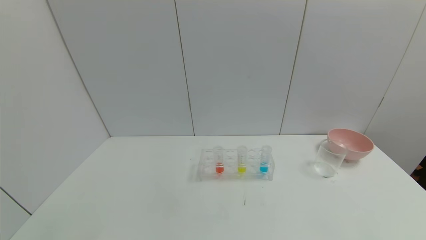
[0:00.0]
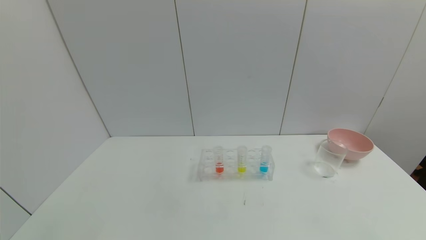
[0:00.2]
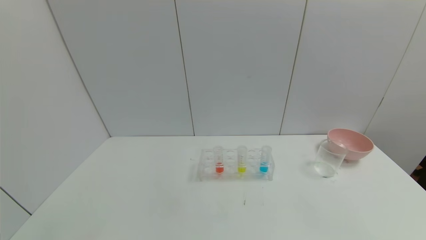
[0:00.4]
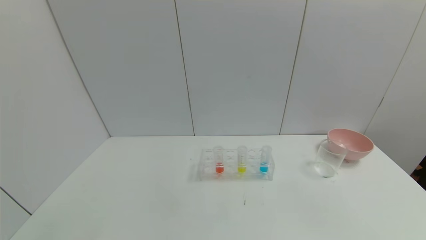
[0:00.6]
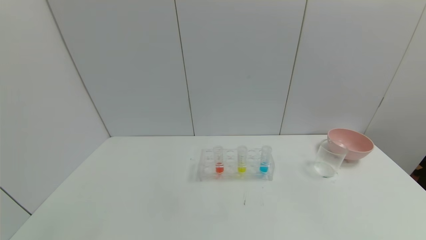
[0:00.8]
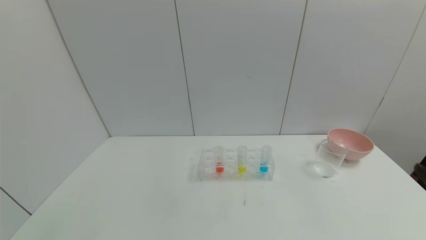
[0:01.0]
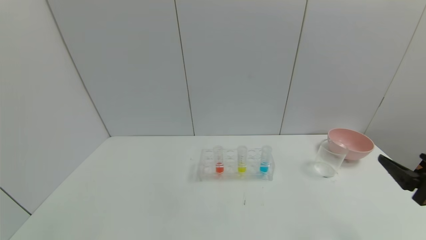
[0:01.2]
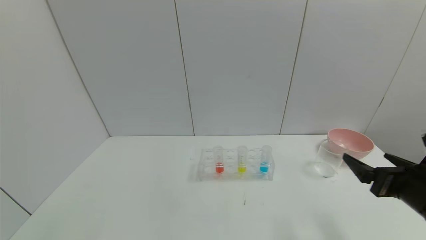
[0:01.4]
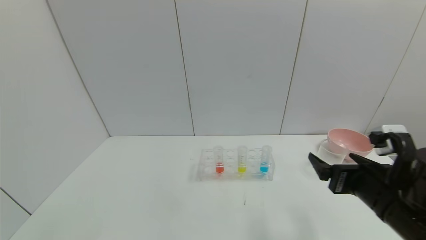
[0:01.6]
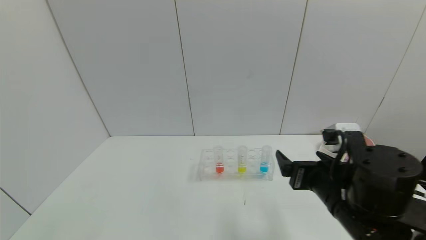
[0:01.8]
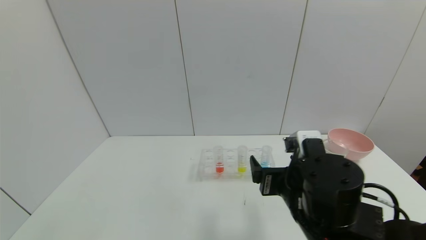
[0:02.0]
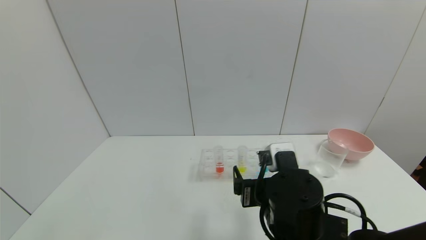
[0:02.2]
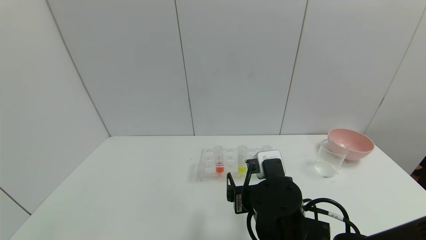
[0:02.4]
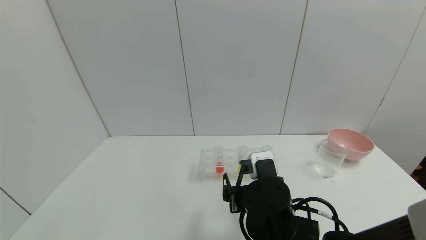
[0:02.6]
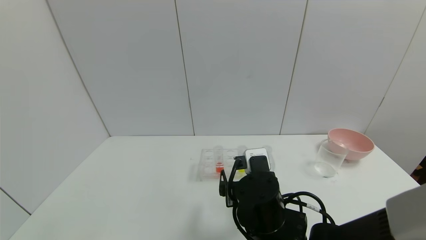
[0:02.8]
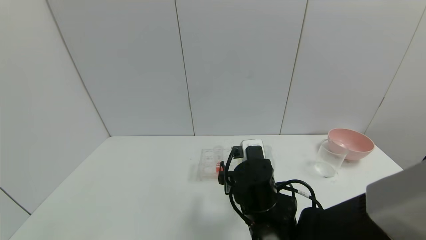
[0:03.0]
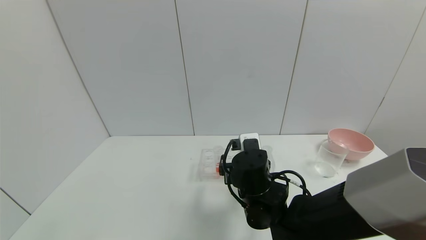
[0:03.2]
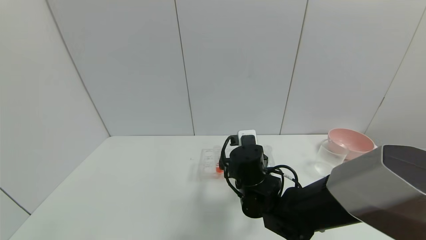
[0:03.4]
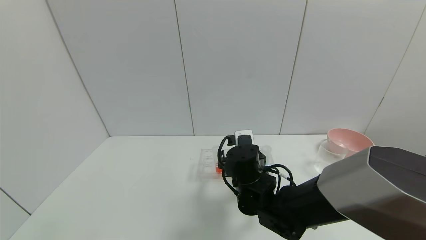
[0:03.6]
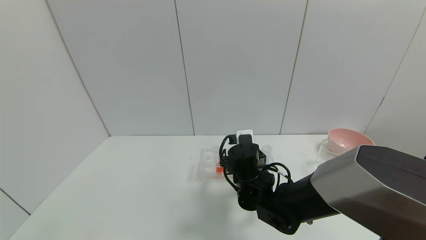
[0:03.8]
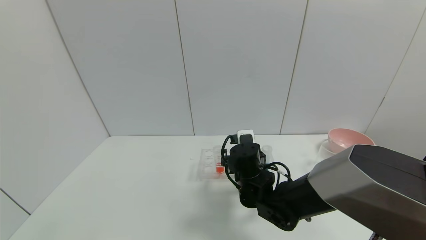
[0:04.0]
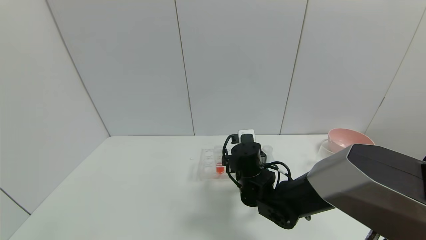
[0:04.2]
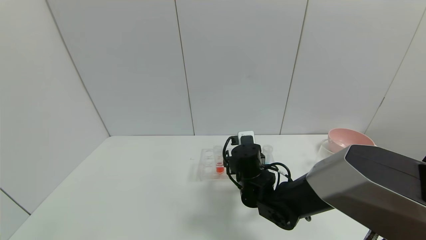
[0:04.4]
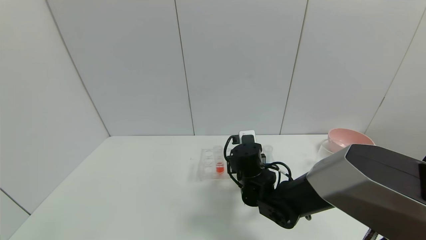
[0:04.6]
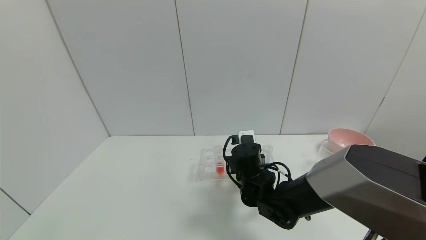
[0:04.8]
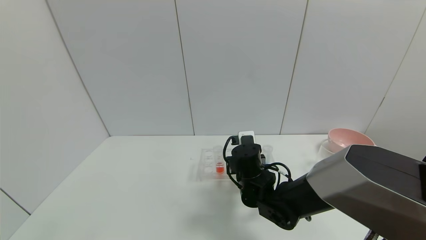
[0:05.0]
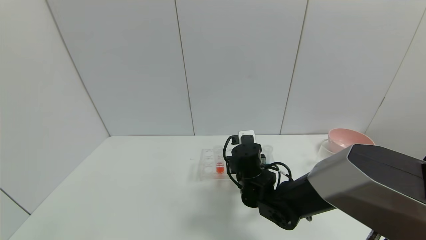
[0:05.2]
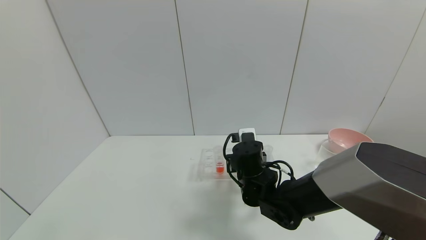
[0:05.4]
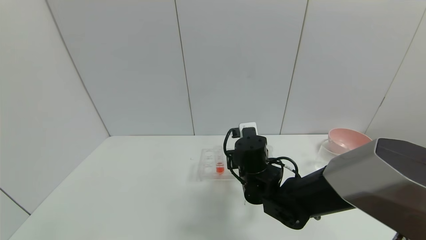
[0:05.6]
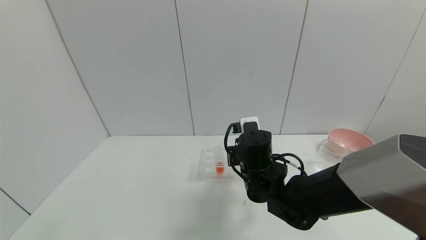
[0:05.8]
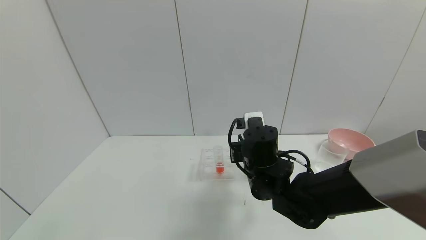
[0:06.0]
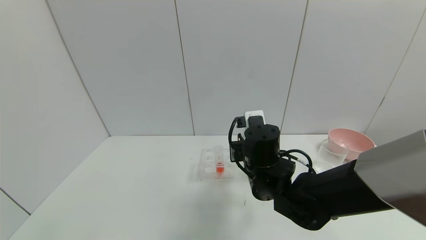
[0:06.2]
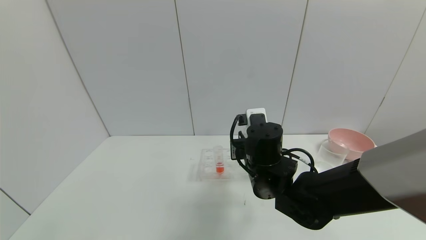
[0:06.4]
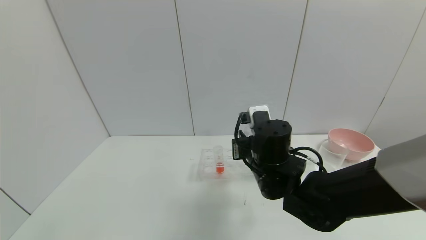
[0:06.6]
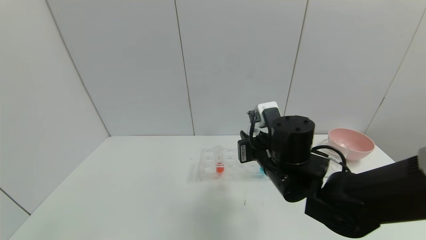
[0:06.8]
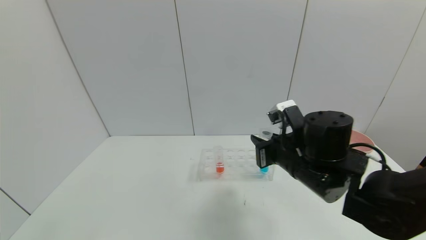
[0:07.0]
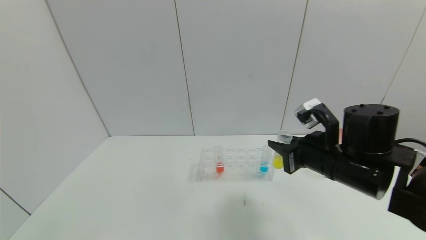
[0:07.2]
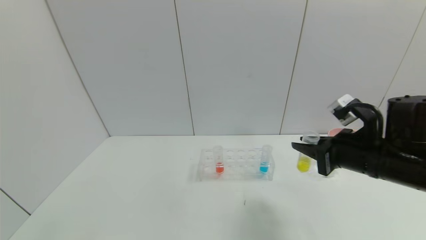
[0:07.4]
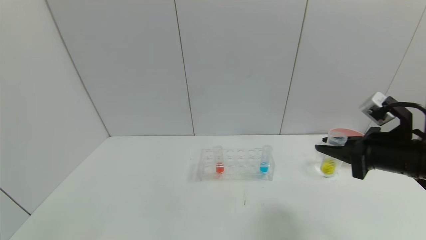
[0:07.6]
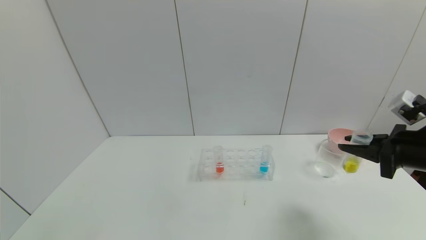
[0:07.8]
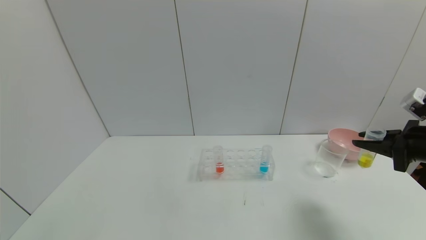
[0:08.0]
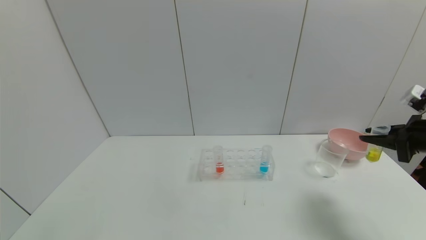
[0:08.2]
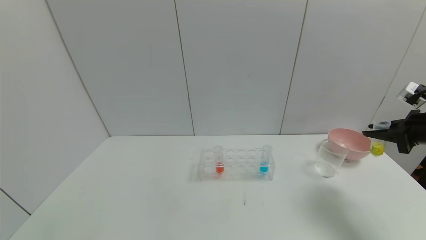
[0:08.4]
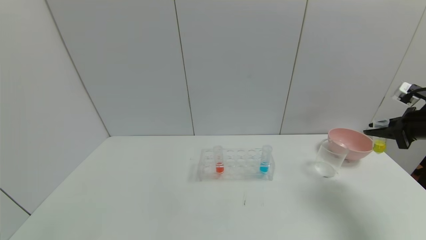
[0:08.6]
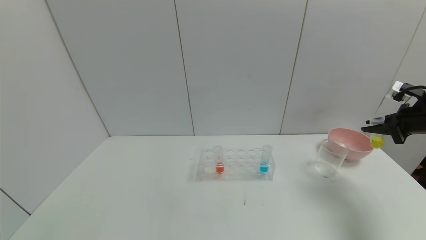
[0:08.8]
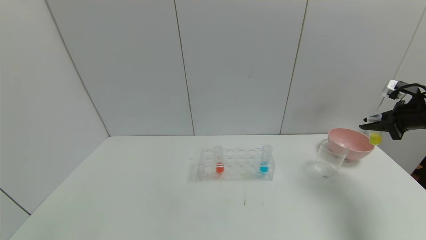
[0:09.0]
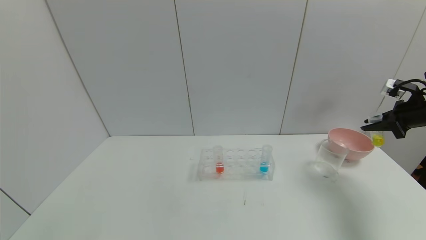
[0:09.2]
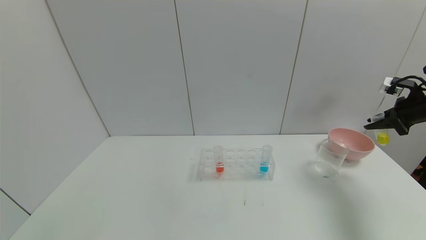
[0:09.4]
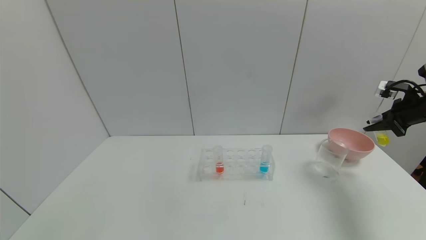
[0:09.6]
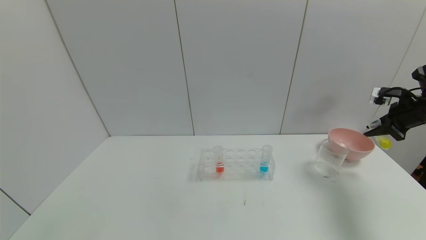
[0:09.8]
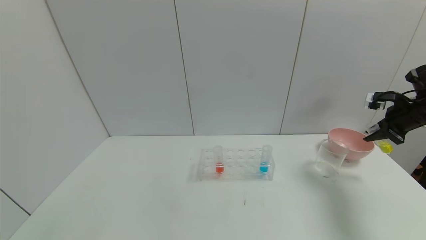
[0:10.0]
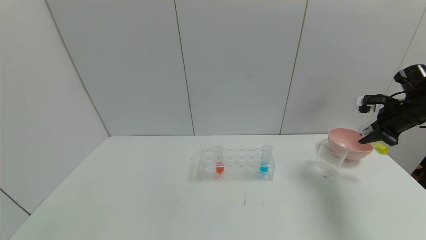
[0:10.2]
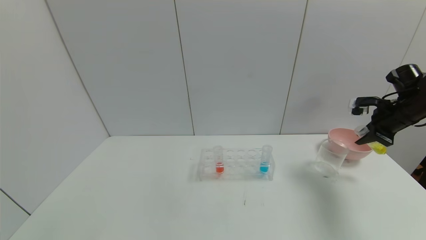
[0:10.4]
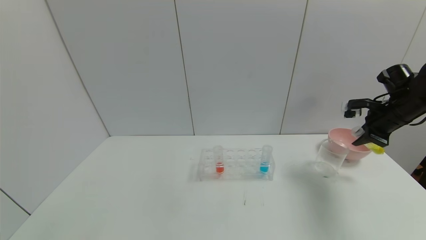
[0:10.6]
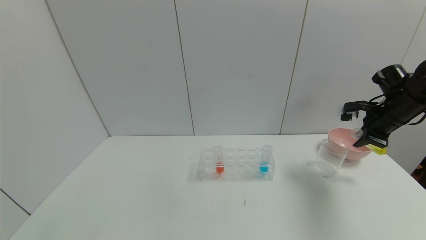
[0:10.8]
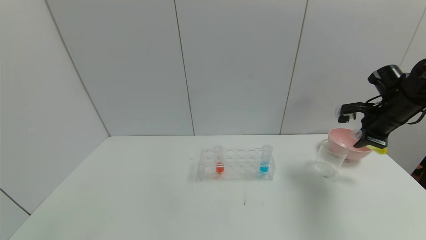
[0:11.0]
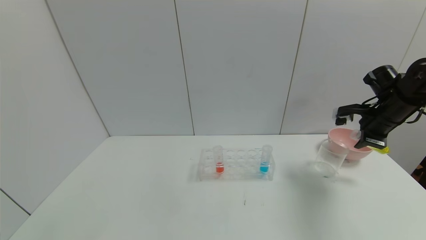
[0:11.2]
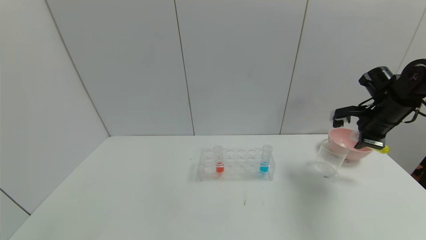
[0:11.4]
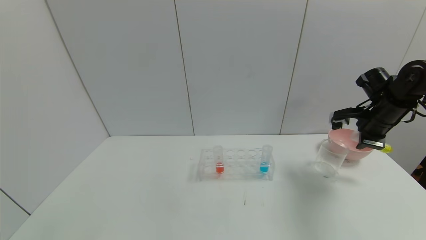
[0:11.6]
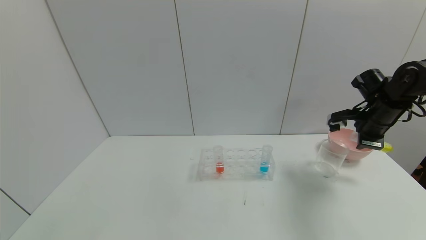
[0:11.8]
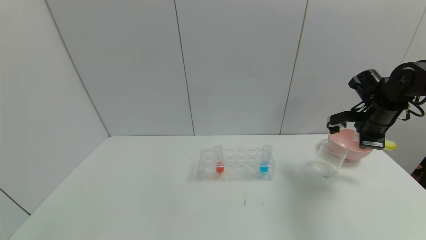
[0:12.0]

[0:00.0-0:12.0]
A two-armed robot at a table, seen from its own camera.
Task of the whole recording: pick up the test tube with yellow pigment and the test tube with blue pigment by grippers and pour them into the beaker.
Step, 0:00.0 to 0:05.0: Grasp the yellow reagent with the right gripper.
0:00.0 to 0:01.6: The right gripper travels forward and to the left by some 25 cm.
0:01.6 to 0:03.0: The right gripper is displaced to the left by about 15 cm.
0:03.0 to 0:04.4: The right gripper heads forward, covering roughly 10 cm.
0:04.4 to 0:06.0: The right gripper goes some 5 cm upward, and closes its fingers.
0:06.0 to 0:07.6: The right gripper goes about 25 cm to the right.
0:07.6 to 0:09.0: The right gripper travels to the right and forward by about 20 cm.
0:09.0 to 0:10.4: The right gripper shifts approximately 5 cm to the left.
0:10.4 to 0:12.0: The right gripper moves to the left, some 5 cm.

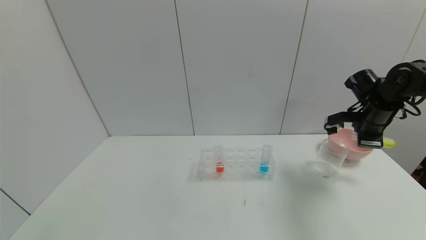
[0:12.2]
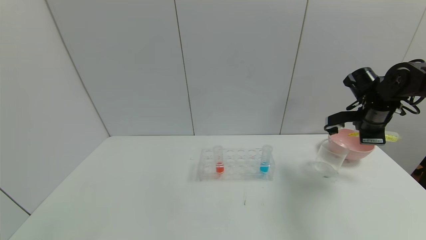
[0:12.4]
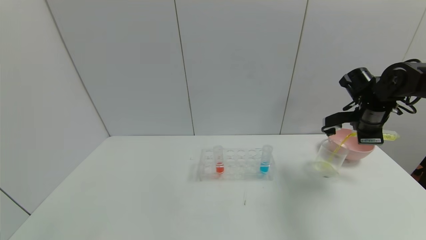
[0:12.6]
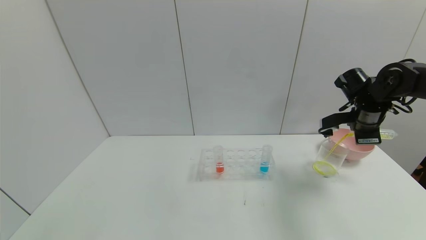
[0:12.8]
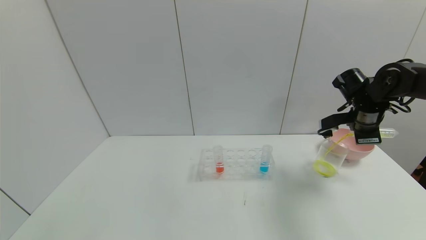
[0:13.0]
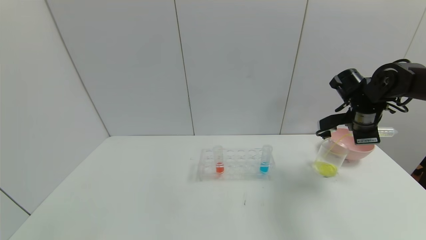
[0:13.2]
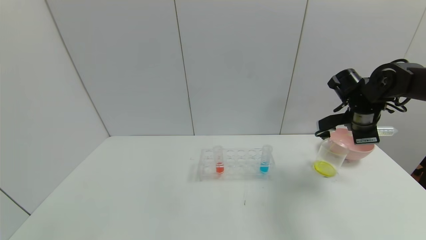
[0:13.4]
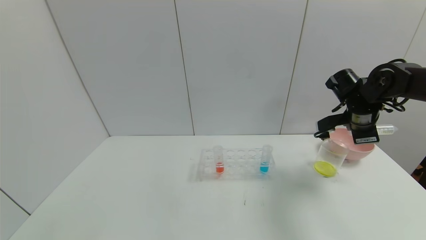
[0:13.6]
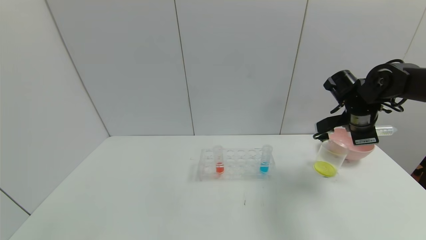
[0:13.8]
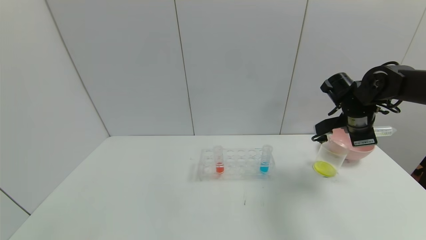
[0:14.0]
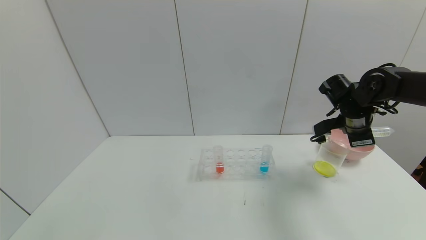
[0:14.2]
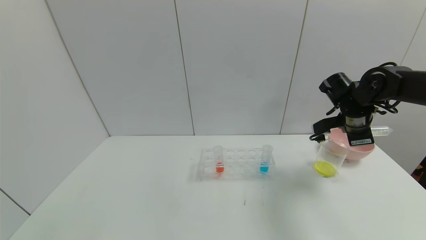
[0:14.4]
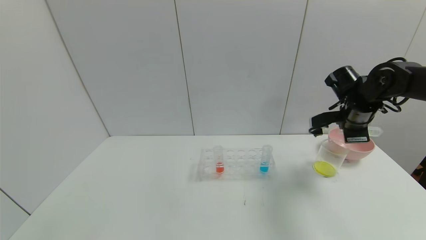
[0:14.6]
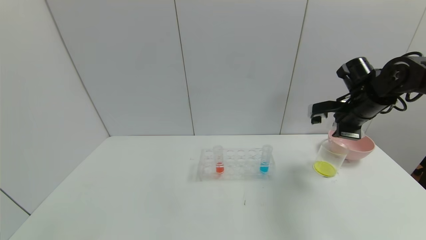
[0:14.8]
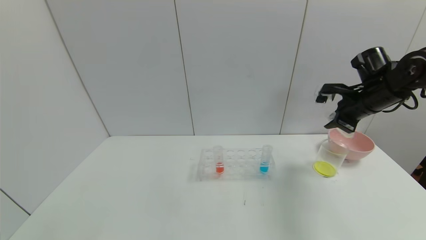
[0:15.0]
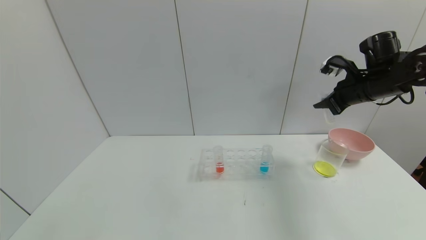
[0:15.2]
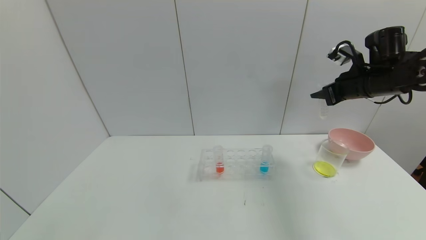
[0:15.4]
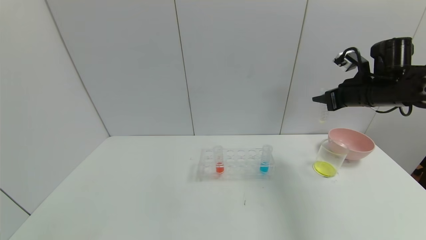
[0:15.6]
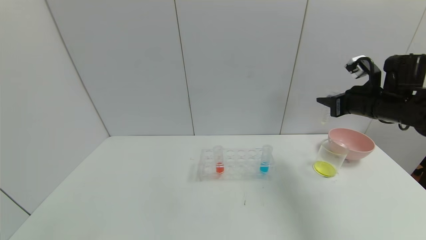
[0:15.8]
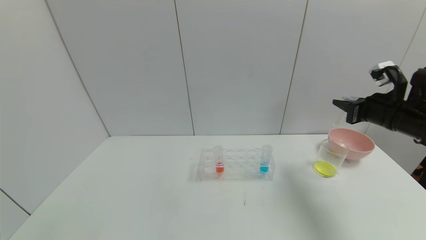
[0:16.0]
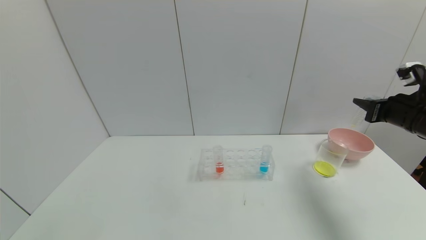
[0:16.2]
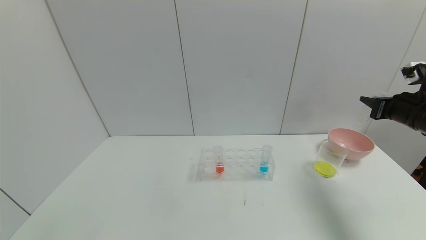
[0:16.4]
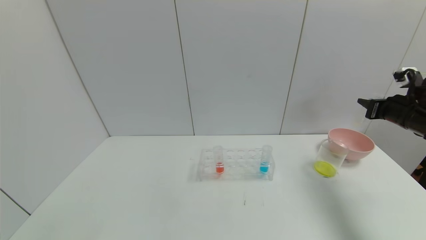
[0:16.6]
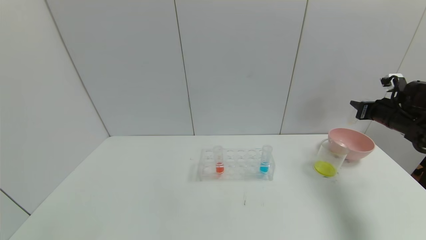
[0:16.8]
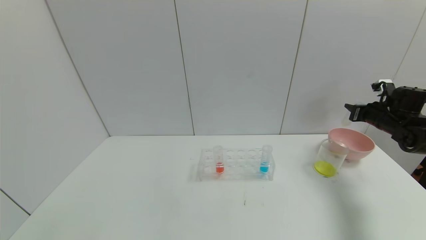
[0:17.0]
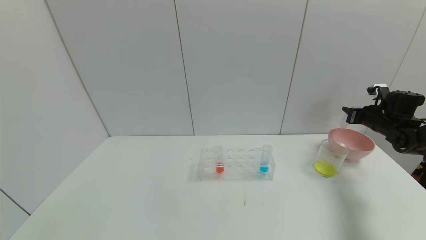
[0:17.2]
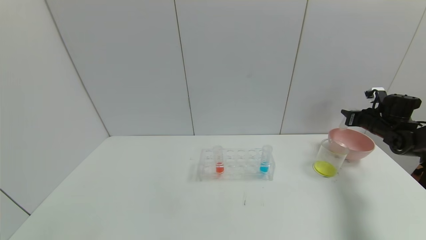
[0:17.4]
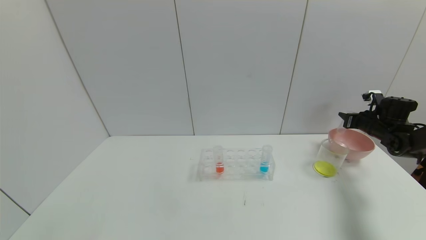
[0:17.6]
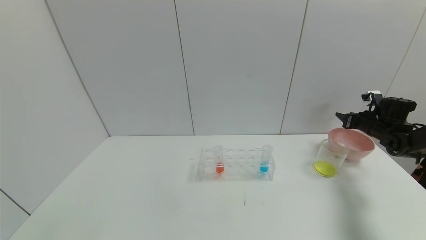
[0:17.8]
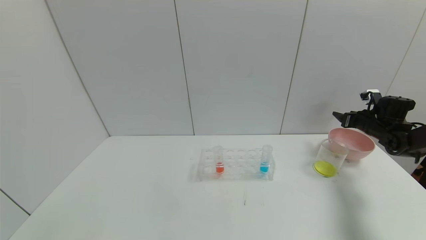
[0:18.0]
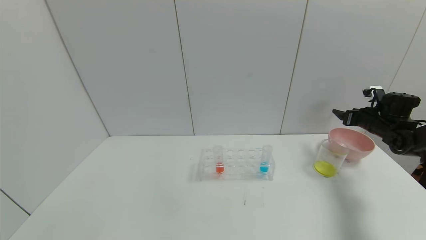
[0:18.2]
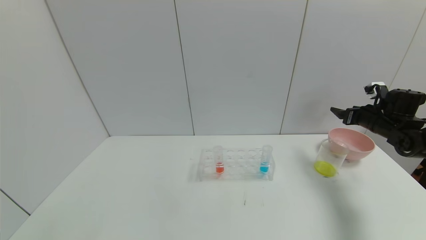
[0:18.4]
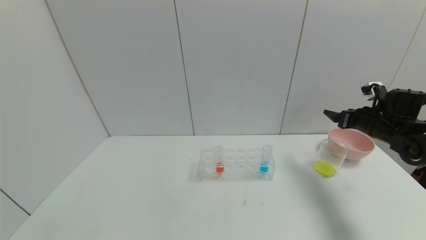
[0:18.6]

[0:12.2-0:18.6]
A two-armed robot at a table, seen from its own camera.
Task of the whole recording: pick up the test tube with yellow pigment and the test tube with blue pigment by grippers and pour them into the beaker.
Step, 0:14.0 to 0:18.2: Place the test tube into the bowl with the right gripper.
0:12.2 to 0:13.8: There are only small adjustments of the grippers.
0:13.8 to 0:15.4: The right gripper shifts some 5 cm upward.
0:15.4 to 0:17.0: The right gripper shifts some 20 cm to the right and downward.
0:17.0 to 0:18.6: The right gripper is displaced to the left and backward by roughly 10 cm, and opens.
